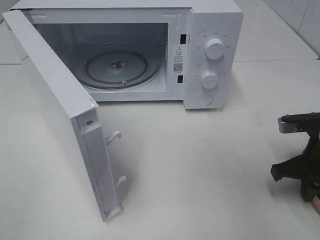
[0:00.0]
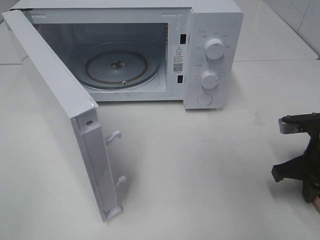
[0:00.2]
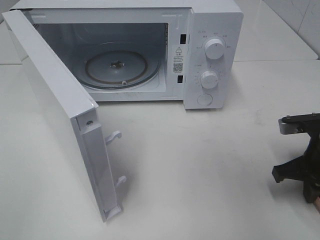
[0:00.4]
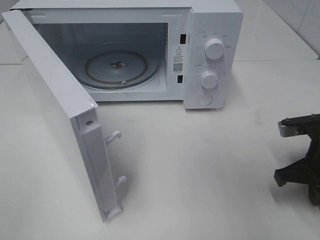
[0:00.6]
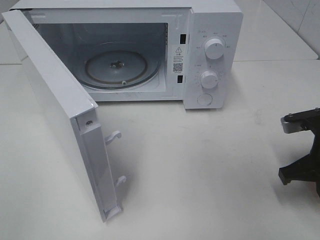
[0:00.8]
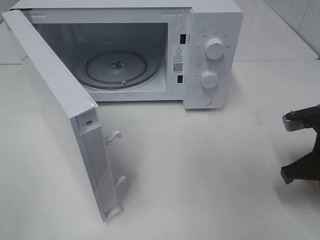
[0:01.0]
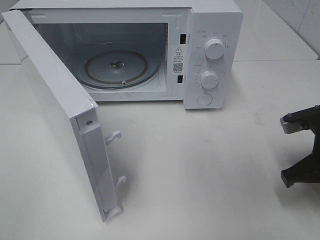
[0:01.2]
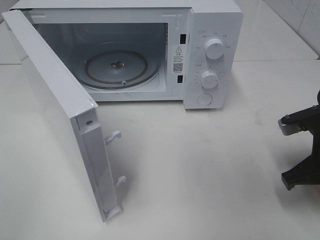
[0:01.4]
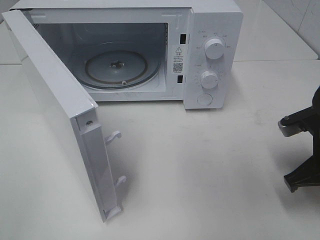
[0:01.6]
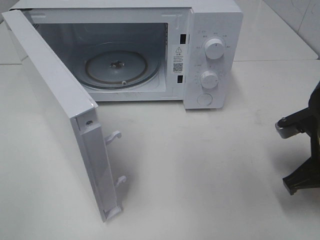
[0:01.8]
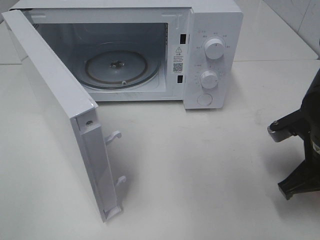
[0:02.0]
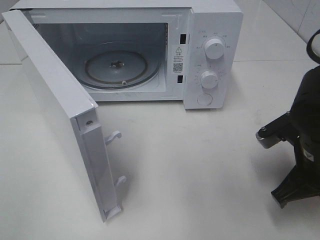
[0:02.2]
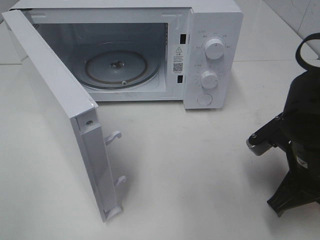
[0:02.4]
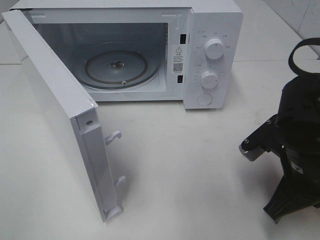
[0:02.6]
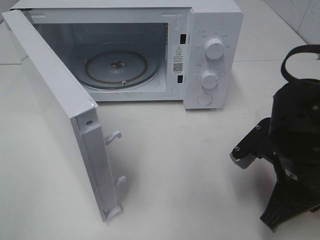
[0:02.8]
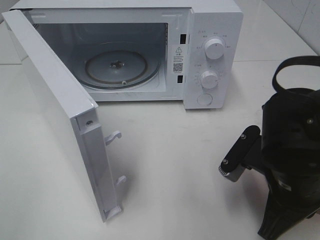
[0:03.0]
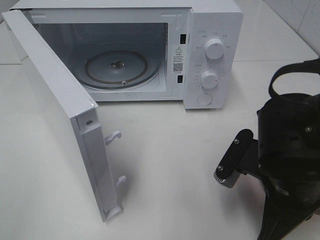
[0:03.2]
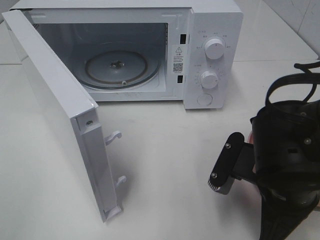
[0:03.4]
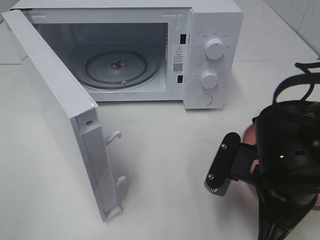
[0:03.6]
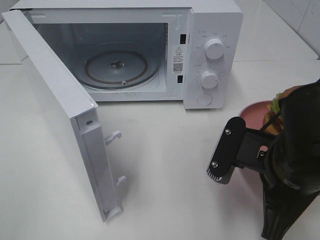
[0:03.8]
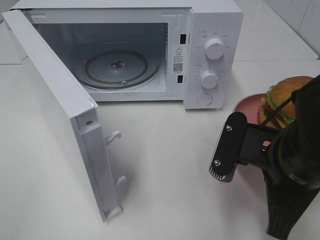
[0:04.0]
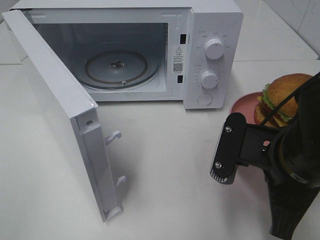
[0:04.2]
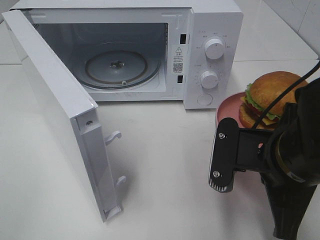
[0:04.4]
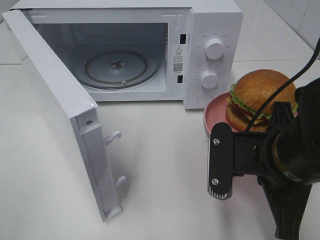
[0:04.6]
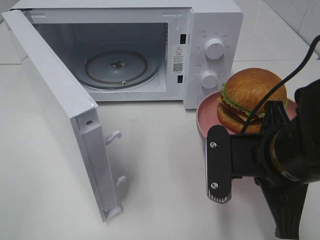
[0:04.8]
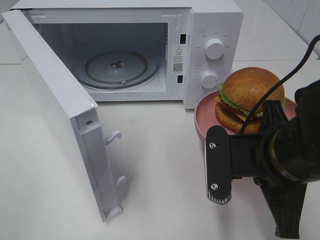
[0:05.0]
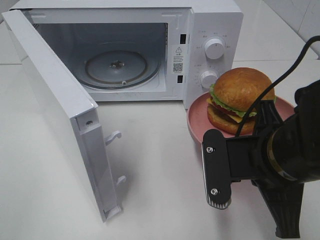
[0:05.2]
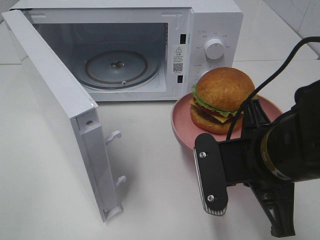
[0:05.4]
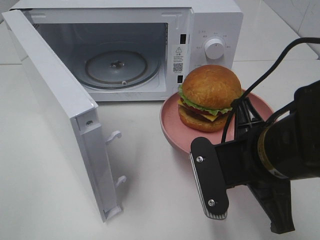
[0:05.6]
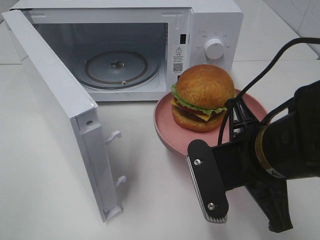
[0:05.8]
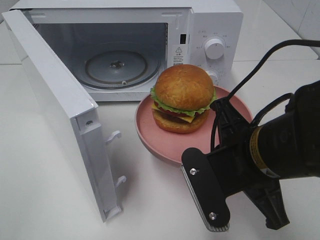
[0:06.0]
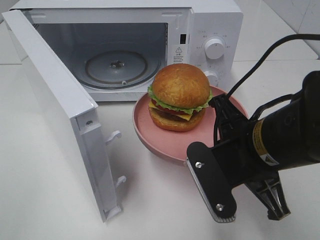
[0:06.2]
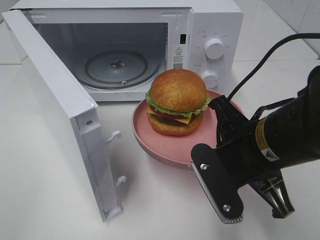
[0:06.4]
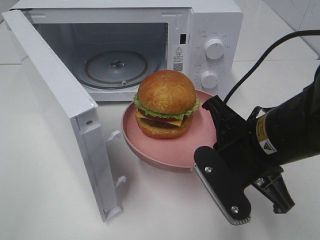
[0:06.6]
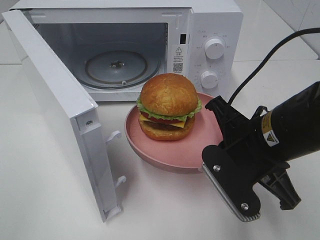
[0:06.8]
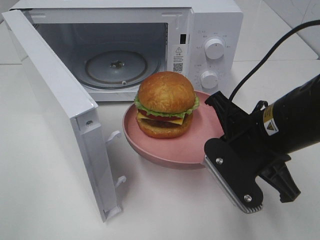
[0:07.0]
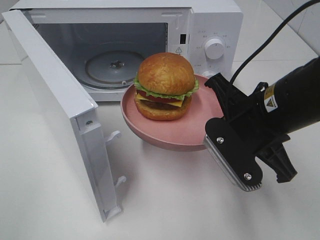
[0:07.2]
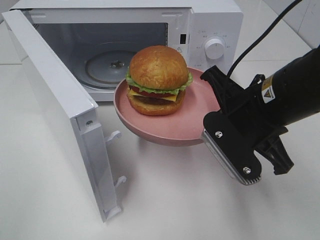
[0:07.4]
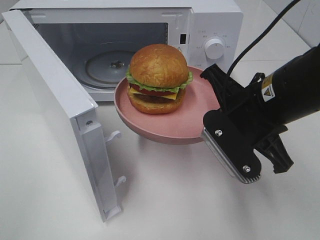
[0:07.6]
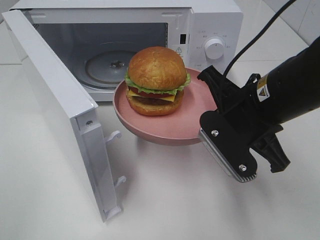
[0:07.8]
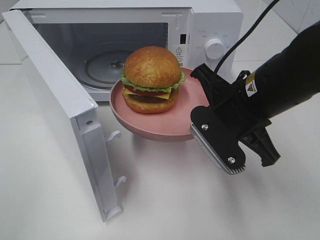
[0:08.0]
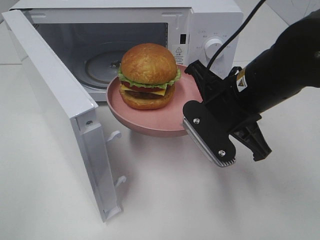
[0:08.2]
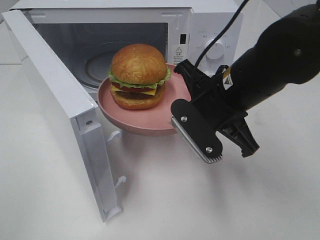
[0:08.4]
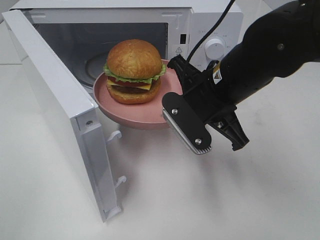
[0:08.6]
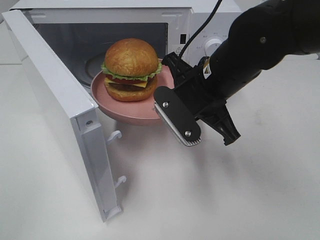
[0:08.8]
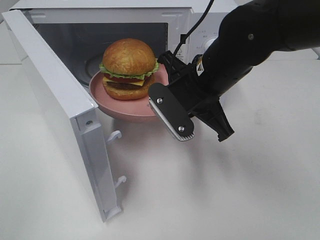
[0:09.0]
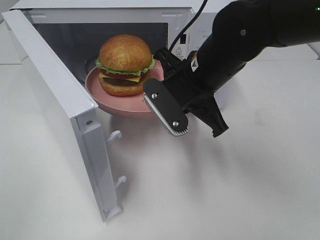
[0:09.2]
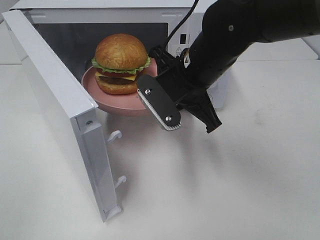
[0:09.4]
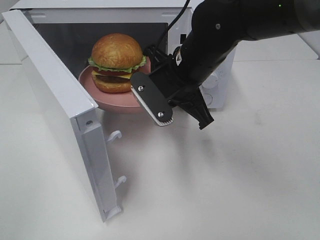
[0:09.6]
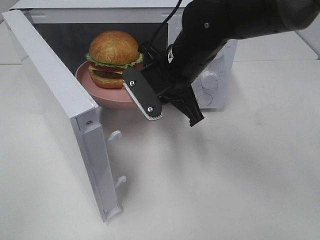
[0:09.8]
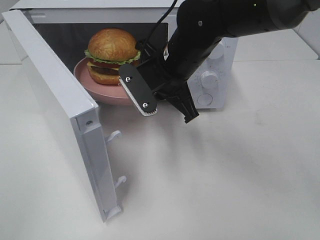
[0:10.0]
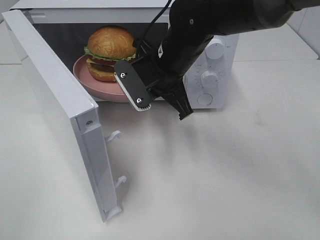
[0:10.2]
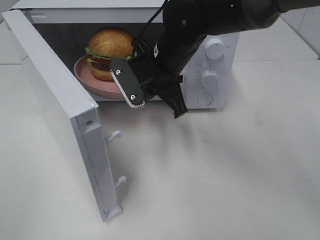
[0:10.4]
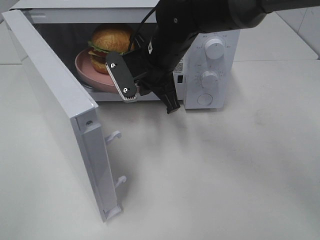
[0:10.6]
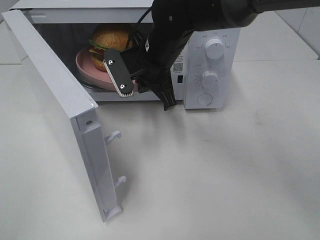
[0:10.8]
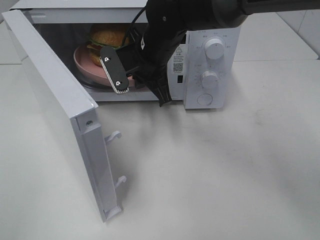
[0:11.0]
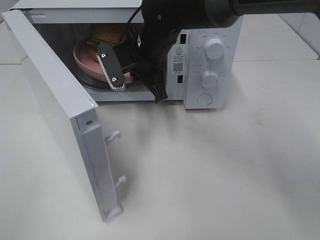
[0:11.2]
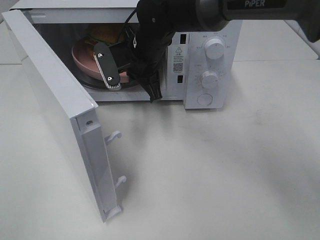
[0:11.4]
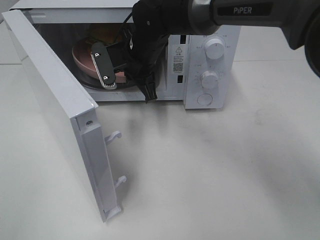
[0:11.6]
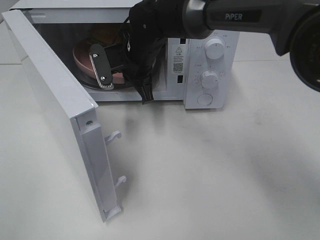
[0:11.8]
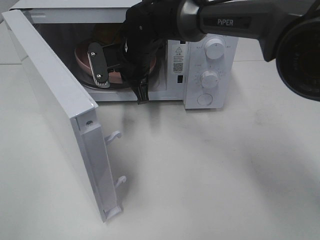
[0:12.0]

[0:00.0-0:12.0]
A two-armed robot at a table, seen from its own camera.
Task of the whole recording: Heat the burger.
0:00.0 to 0:01.6: The grippers make only small movements.
0:01.6 to 0:03.0: The right gripper travels to the left and backward by some 10 cm.
0:06.0 to 0:07.6: The right gripper moves forward, some 5 cm.
0:07.6 to 0:09.0: The right gripper goes some 10 cm forward and to the left.
0:09.0 to 0:10.4: The right gripper heads forward and to the left, covering roughly 10 cm.
0:10.4 to 0:12.0: The right gripper shifts approximately 10 cm forward and to the left.

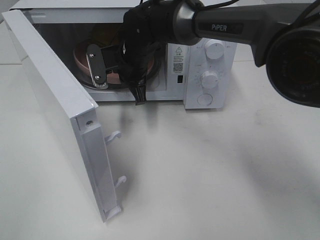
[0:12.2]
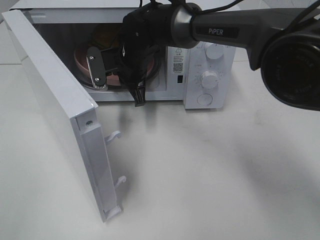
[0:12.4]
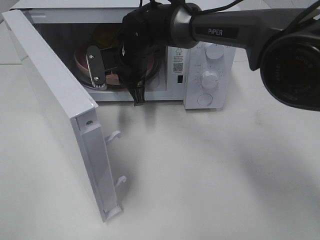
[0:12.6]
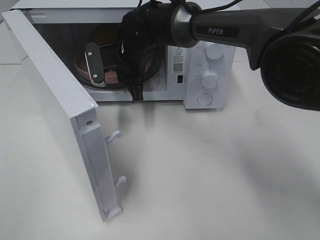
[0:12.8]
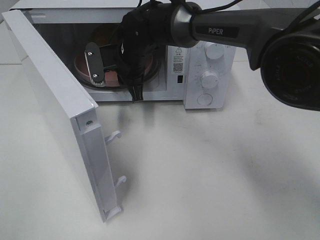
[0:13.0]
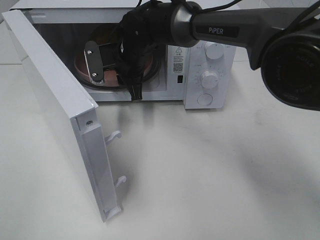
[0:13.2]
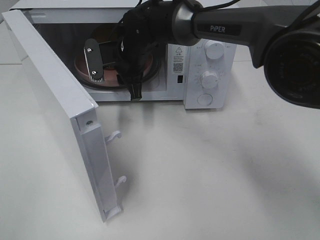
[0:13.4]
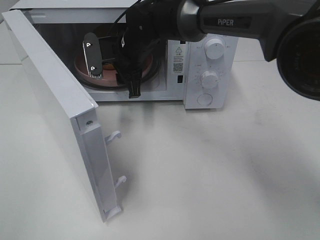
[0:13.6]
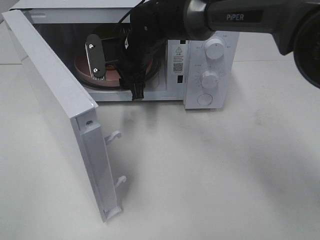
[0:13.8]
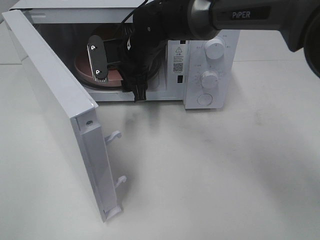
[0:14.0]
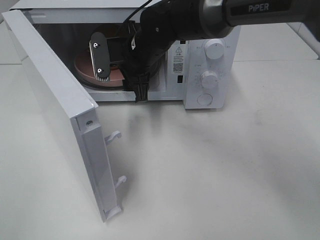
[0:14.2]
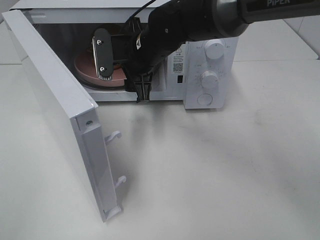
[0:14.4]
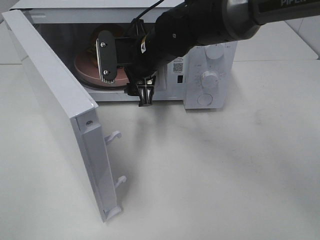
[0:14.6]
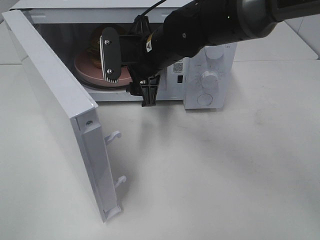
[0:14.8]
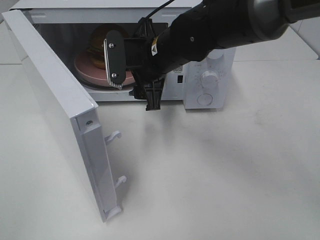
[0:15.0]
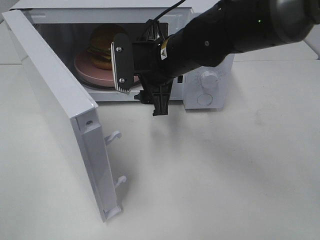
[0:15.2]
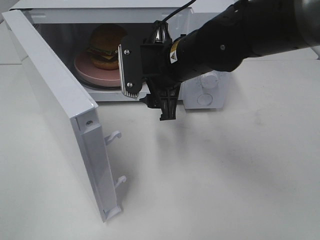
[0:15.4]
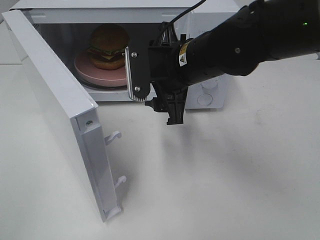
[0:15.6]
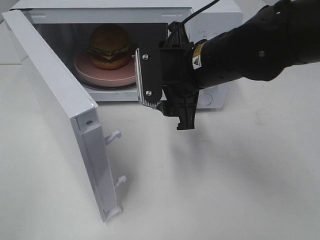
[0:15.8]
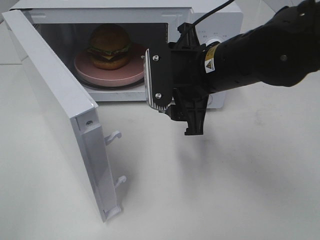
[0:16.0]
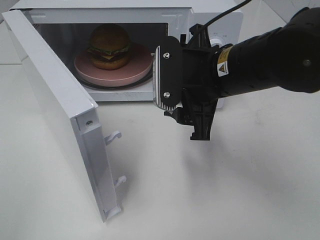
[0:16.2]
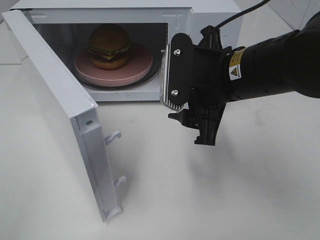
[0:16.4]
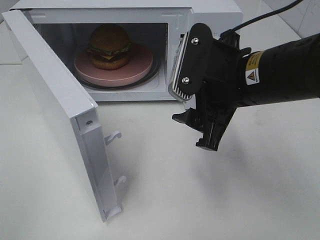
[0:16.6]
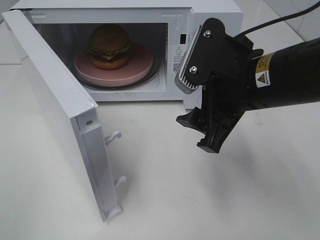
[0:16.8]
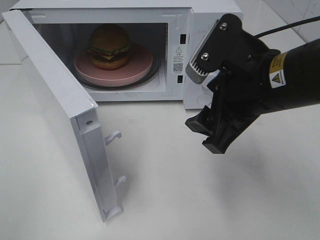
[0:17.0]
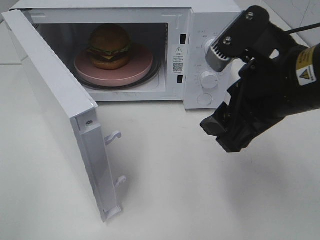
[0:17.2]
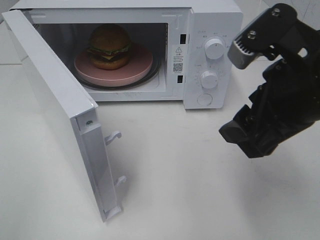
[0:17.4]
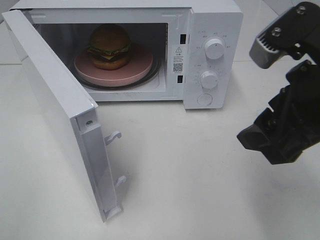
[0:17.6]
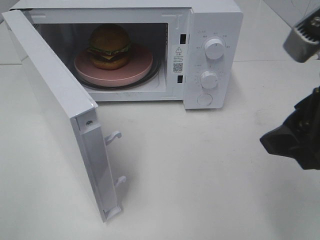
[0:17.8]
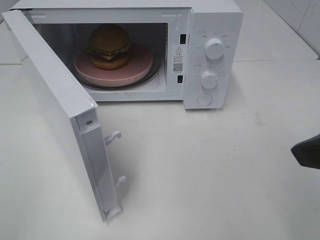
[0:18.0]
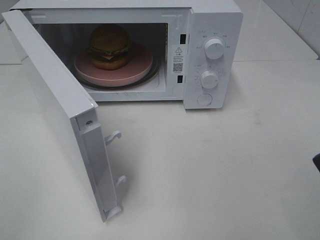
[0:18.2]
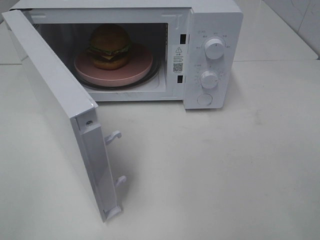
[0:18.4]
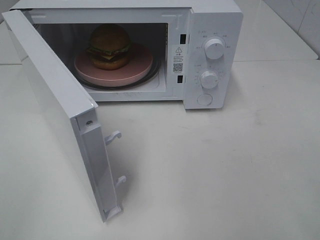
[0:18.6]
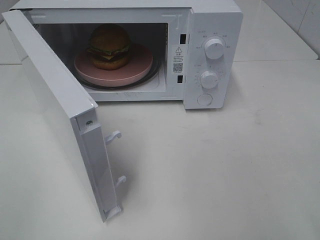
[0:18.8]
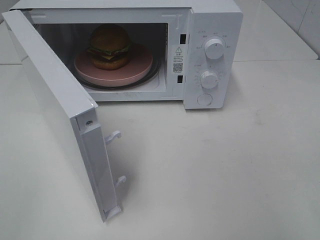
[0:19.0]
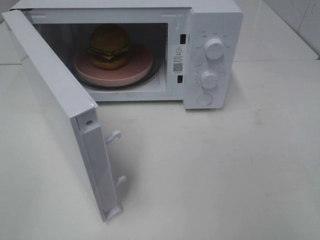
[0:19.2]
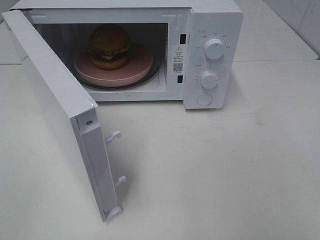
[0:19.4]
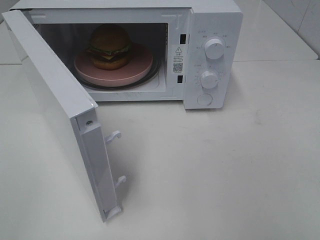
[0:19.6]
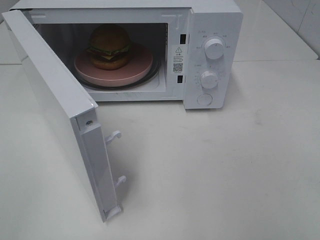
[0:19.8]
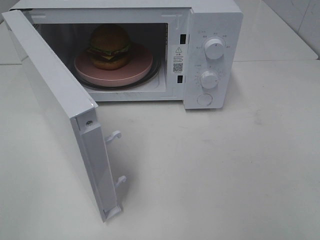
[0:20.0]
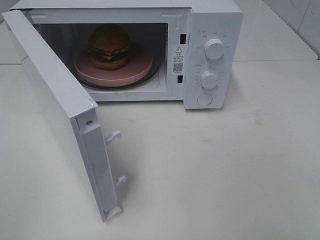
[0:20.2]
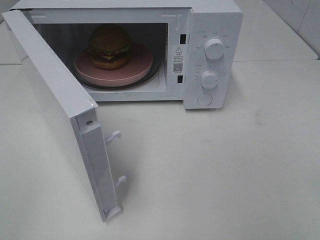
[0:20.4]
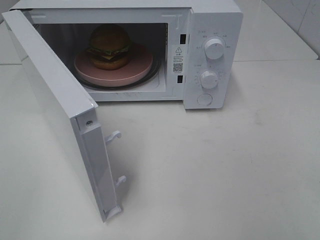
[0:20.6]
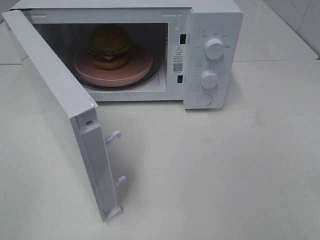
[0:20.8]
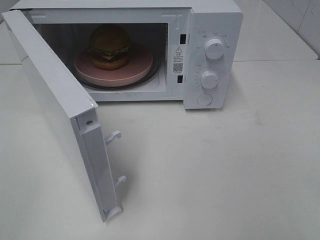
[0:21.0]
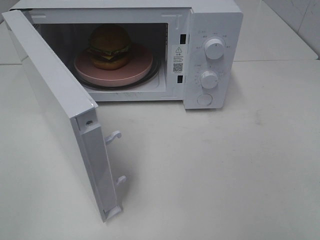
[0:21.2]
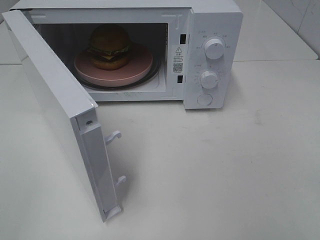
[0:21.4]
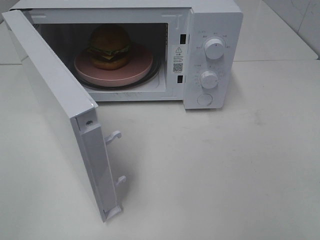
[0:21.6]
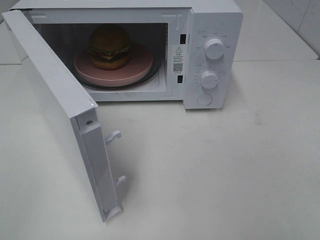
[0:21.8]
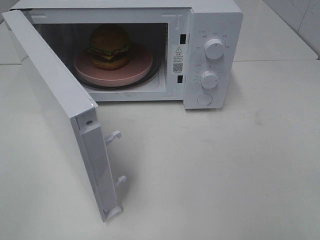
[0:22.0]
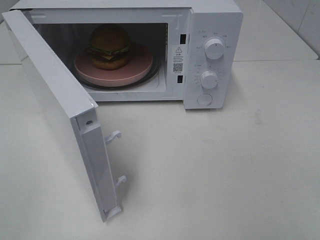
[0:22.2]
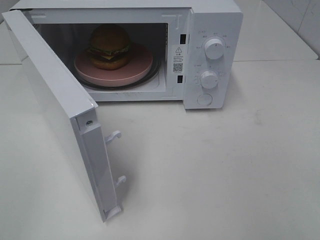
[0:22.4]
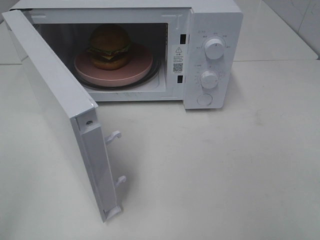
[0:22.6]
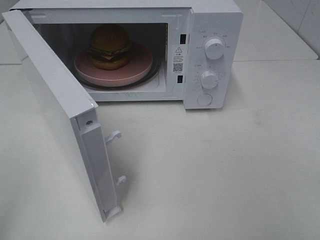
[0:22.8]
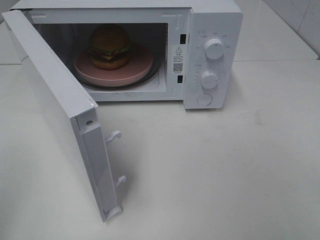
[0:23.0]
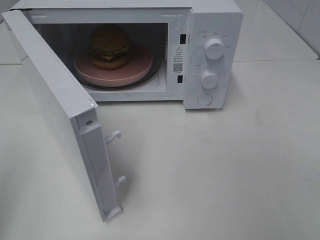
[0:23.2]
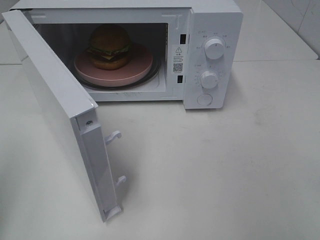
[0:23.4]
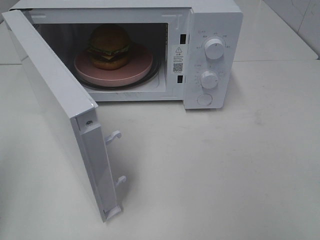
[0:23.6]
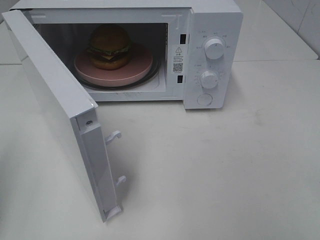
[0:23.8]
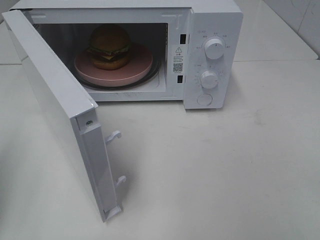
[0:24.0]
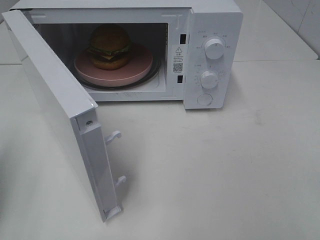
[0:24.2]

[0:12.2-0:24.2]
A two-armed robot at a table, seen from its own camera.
Task of the whole recording: Heat the burger.
0:12.2 to 0:13.8: The right gripper opens up.
0:13.8 to 0:15.2: The right gripper travels backward and to the right by roughly 10 cm.
0:15.2 to 0:16.6: The right gripper moves backward and to the right, some 15 cm.
0:16.6 to 0:18.2: The right gripper moves backward, to the right and upward, roughly 20 cm.
